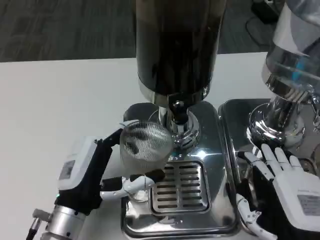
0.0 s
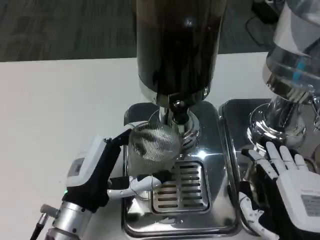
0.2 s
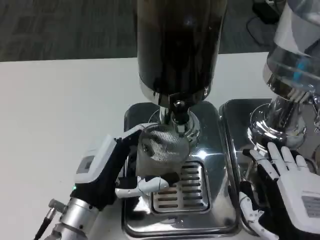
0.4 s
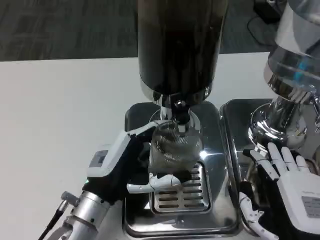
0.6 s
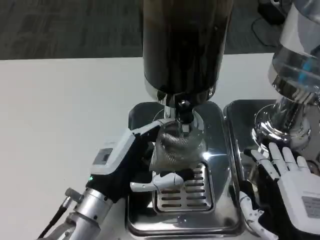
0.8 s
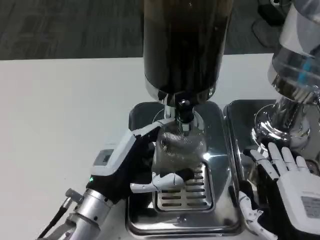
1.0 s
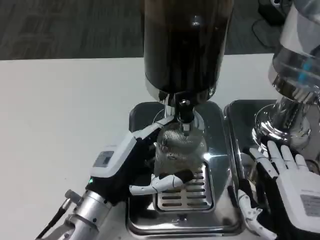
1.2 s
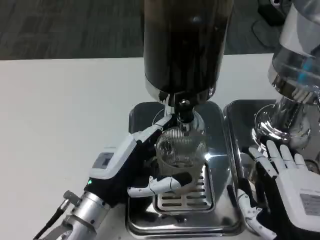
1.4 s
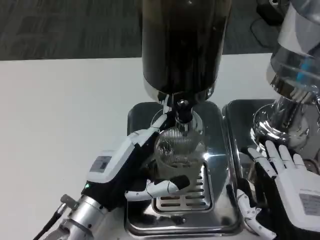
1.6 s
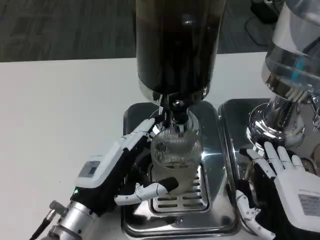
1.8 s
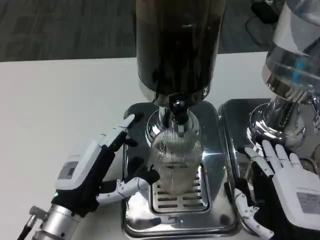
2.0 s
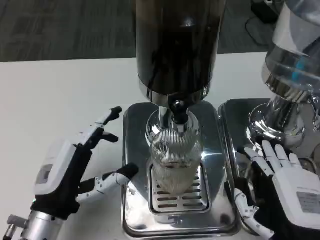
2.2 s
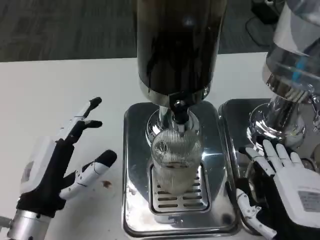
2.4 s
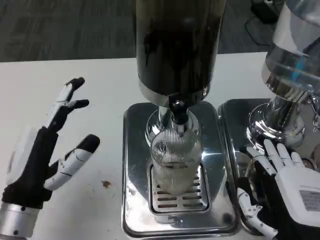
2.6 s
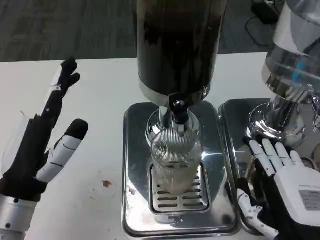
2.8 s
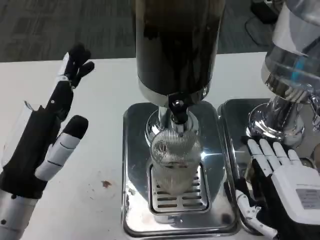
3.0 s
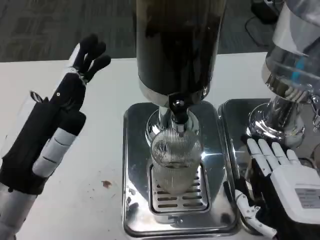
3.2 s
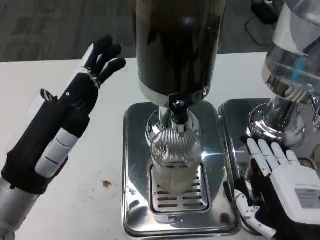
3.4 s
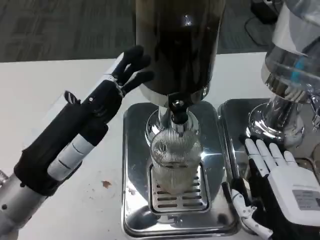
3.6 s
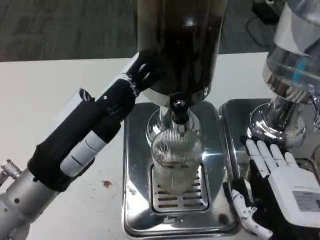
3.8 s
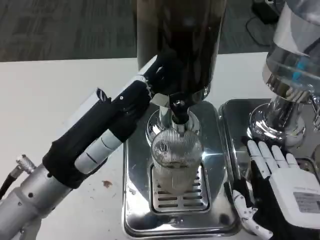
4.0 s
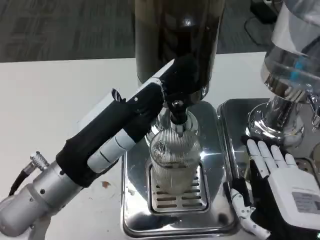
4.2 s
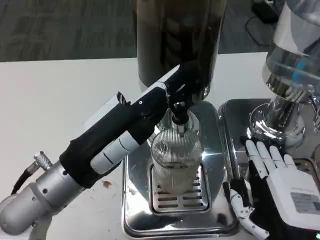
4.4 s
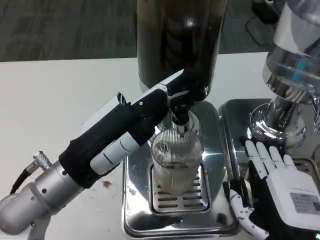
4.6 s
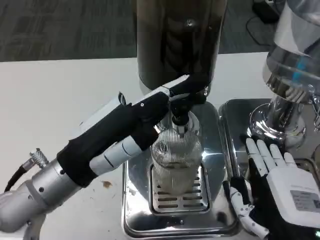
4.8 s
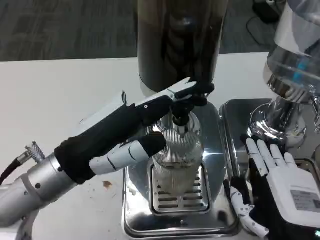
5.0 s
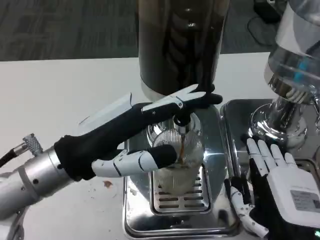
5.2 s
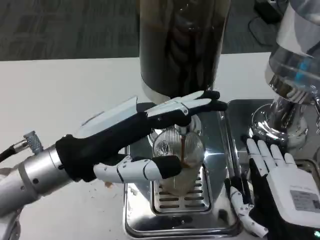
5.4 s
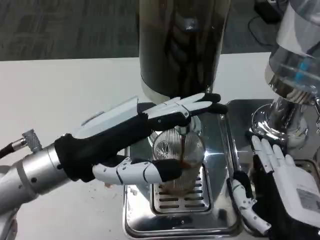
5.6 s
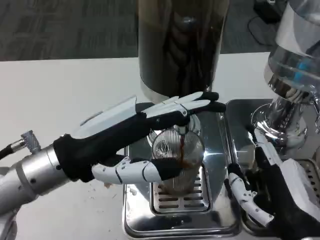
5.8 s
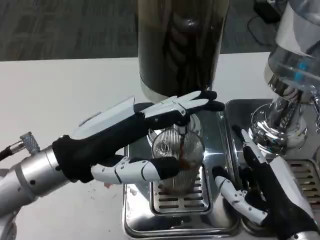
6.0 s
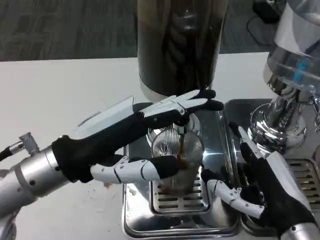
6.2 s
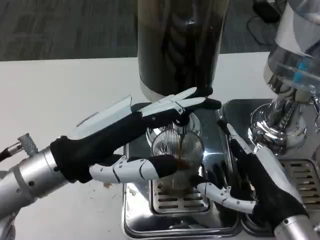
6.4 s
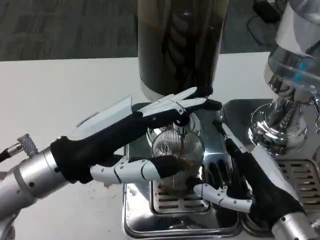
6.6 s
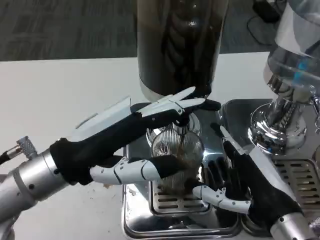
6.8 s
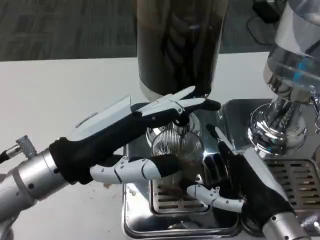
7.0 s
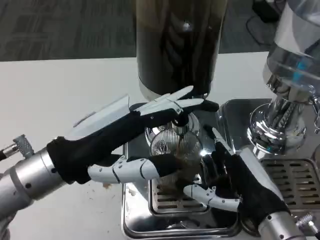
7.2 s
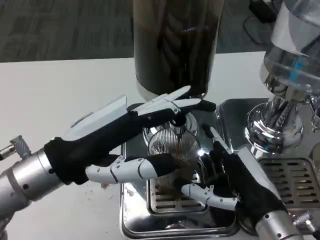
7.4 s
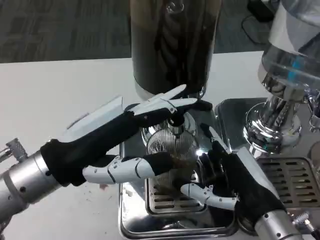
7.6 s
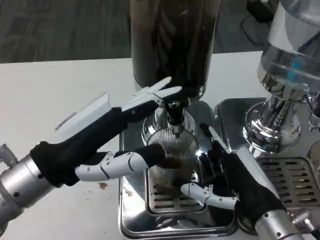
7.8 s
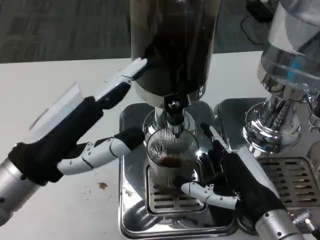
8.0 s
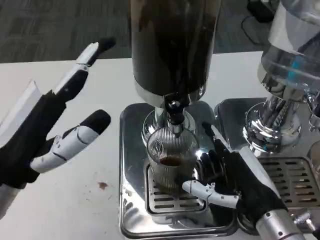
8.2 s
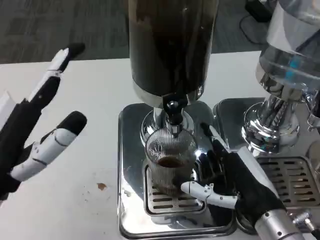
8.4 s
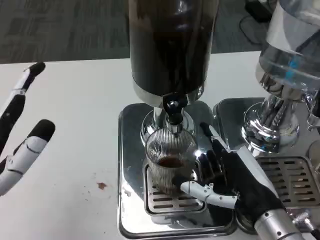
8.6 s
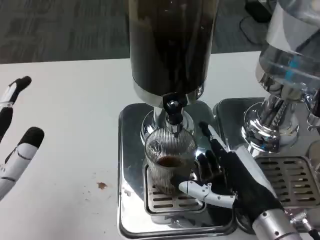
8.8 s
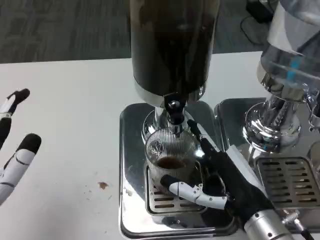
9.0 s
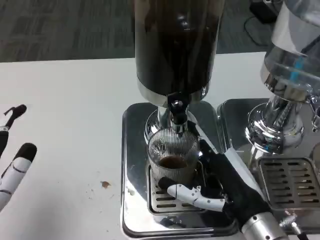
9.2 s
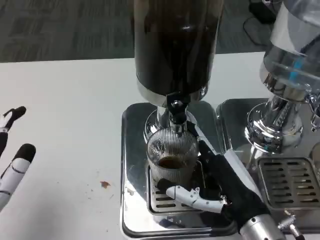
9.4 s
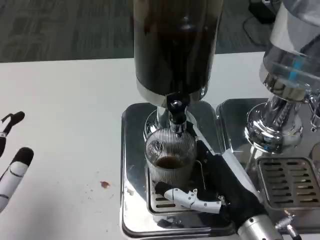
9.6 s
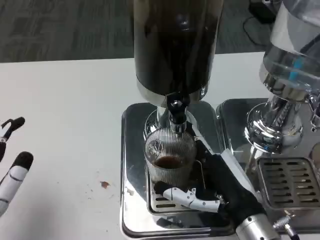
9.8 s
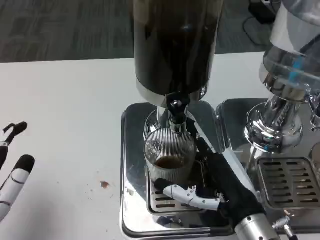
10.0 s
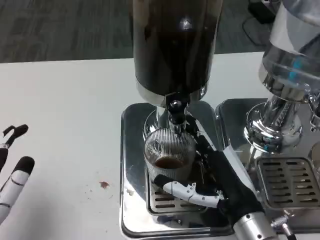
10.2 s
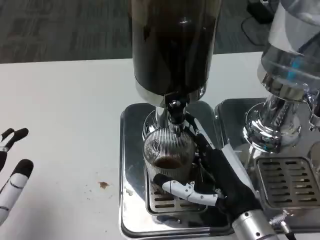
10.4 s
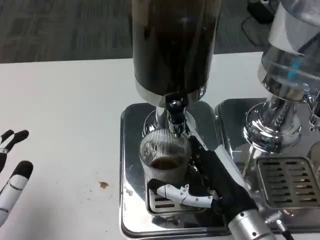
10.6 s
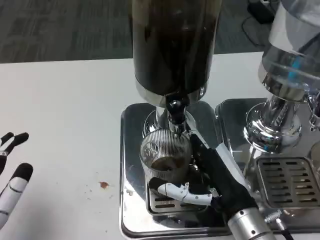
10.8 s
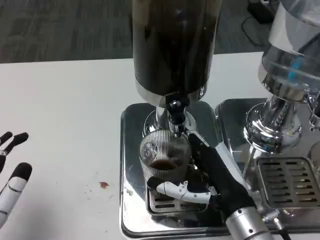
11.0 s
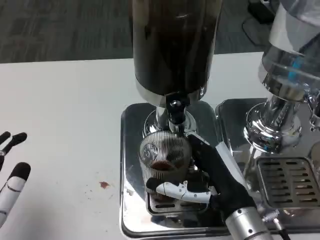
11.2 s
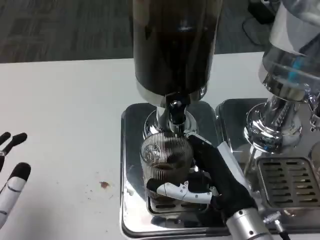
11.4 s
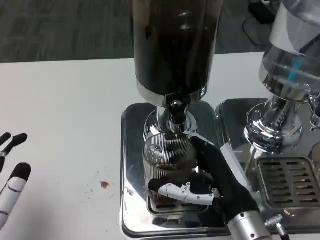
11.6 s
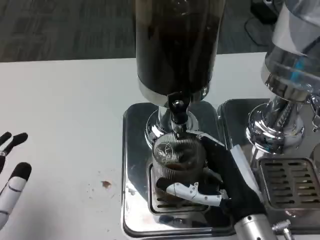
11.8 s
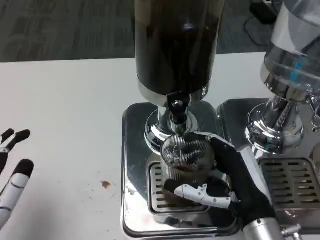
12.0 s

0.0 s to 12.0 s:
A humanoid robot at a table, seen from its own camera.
Task of the whole recording: Grasp the cup under the faucet to collect the drink, then remove the cup.
1.6 to 3.0 s: The left hand moves upward and to the left, roughly 10 cm.
3.0 to 4.4 s: The left hand shifts by roughly 5 cm.
7.6 to 9.0 s: The left hand travels backward, to the left and downward by some 10 cm.
9.0 to 10.4 s: The hands move only a little.

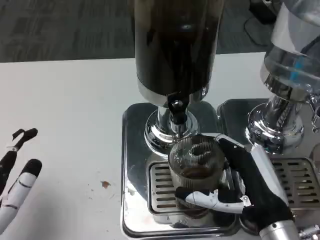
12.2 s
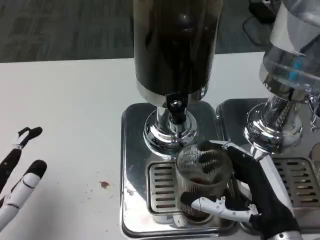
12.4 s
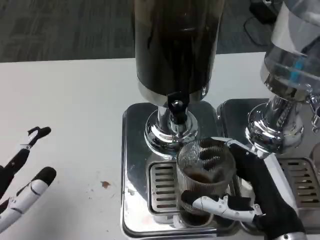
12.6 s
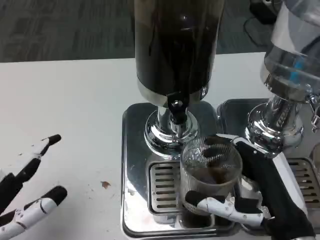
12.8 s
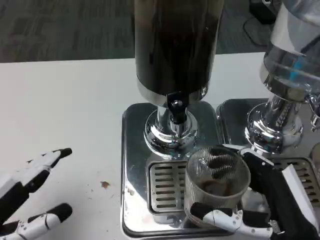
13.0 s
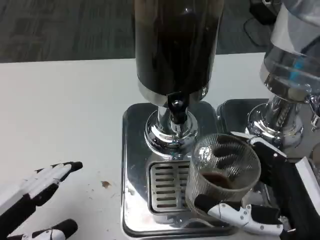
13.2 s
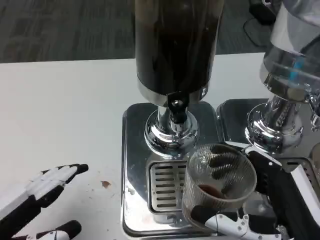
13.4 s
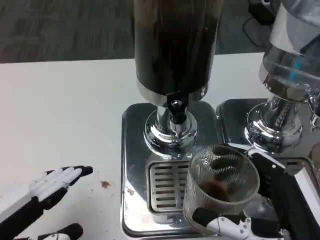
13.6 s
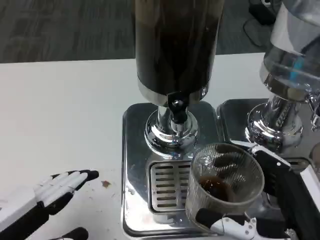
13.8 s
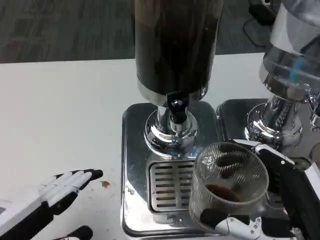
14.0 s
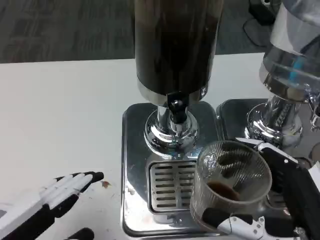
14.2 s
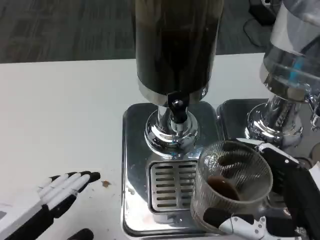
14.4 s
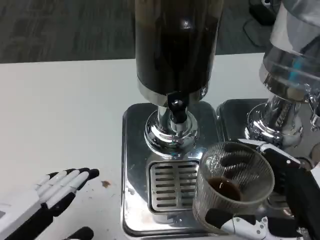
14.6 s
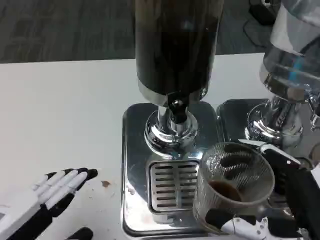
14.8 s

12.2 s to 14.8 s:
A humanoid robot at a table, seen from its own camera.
Task of the whole recording: Grasp the cup under the faucet to collect the drink, then remove the cup.
12.2 to 13.4 s: The left hand moves approximately 5 cm. The right hand is displaced backward by roughly 5 cm.
13.4 to 14.8 s: There are only small adjustments of the hands.

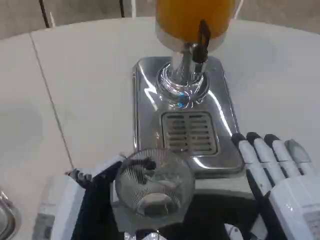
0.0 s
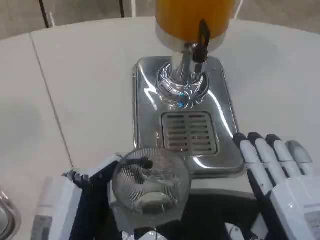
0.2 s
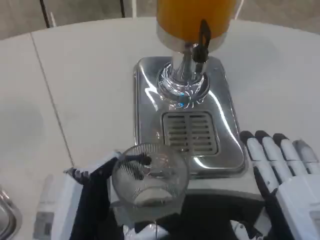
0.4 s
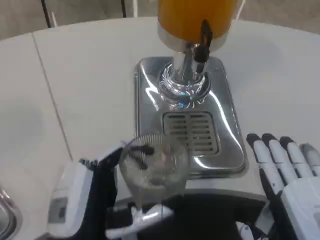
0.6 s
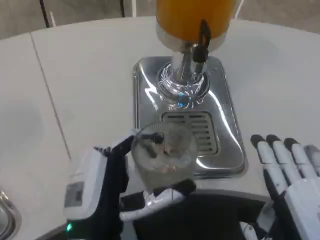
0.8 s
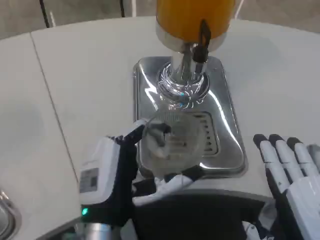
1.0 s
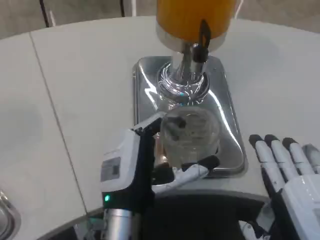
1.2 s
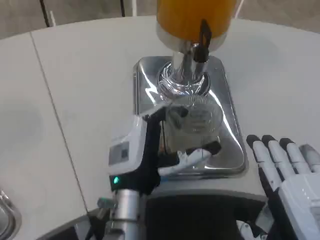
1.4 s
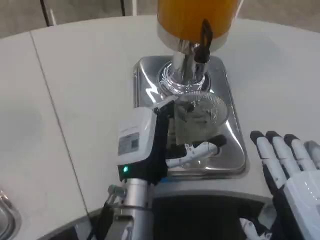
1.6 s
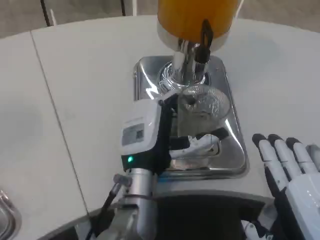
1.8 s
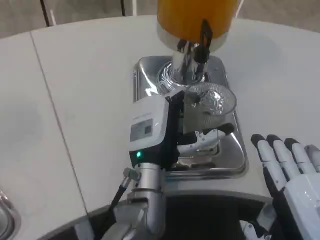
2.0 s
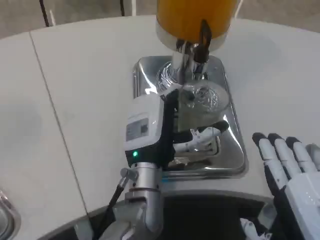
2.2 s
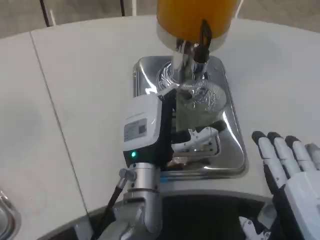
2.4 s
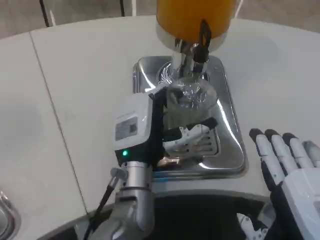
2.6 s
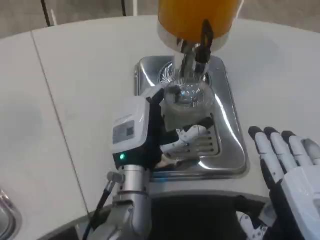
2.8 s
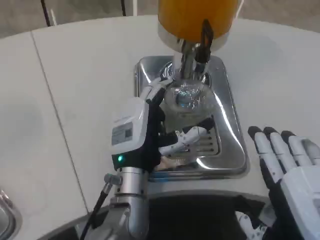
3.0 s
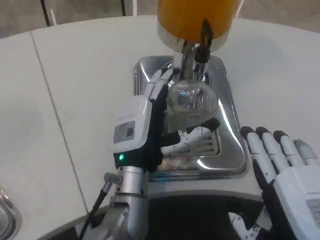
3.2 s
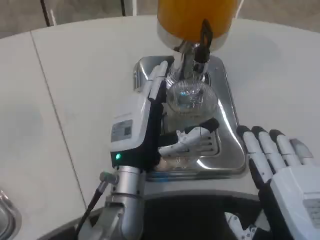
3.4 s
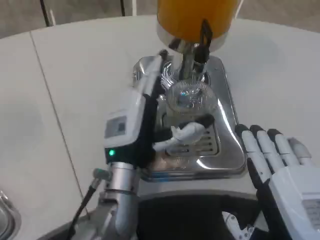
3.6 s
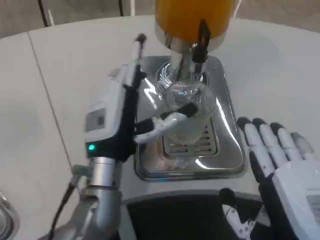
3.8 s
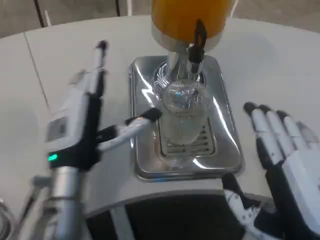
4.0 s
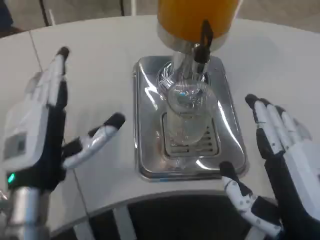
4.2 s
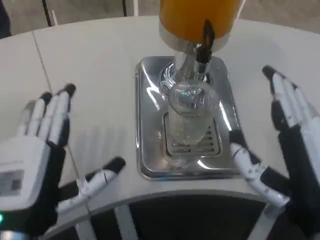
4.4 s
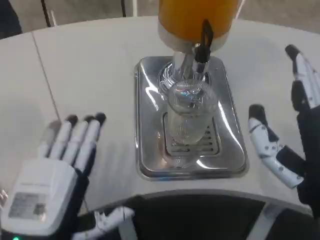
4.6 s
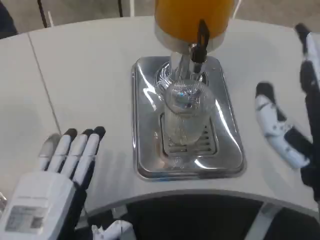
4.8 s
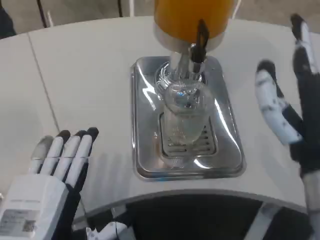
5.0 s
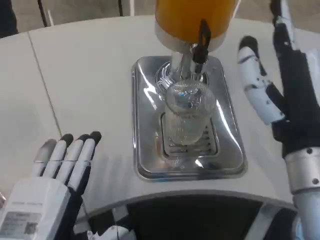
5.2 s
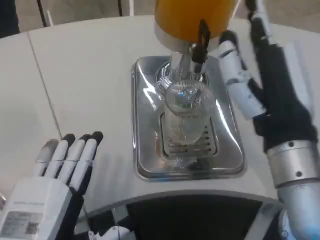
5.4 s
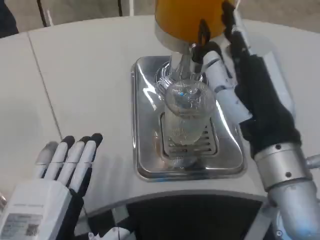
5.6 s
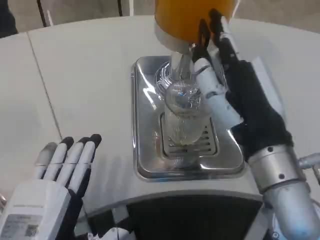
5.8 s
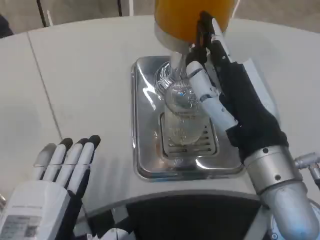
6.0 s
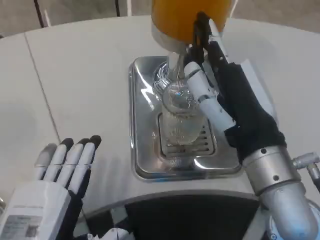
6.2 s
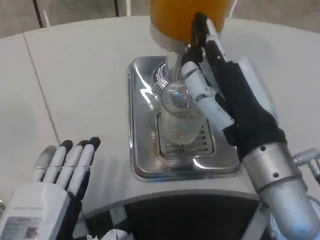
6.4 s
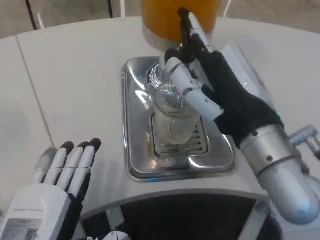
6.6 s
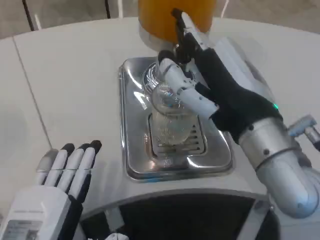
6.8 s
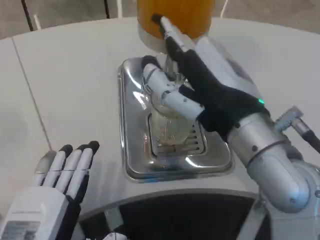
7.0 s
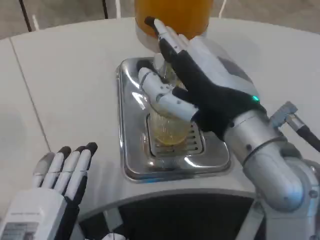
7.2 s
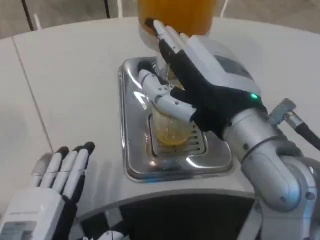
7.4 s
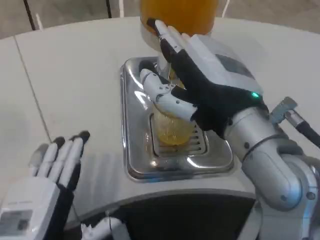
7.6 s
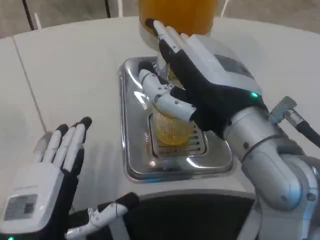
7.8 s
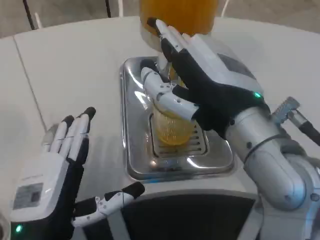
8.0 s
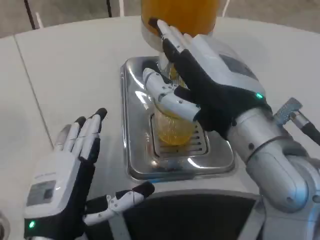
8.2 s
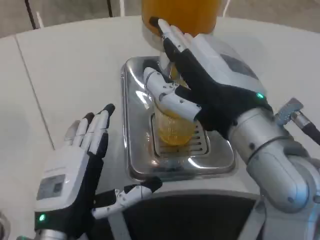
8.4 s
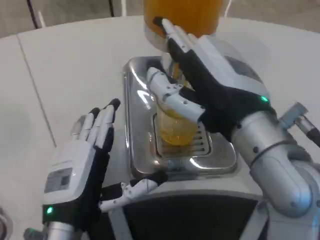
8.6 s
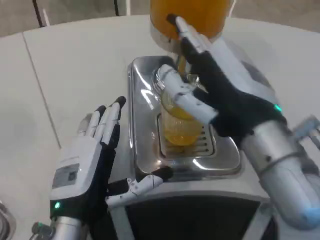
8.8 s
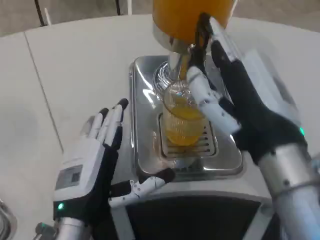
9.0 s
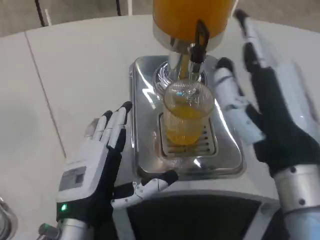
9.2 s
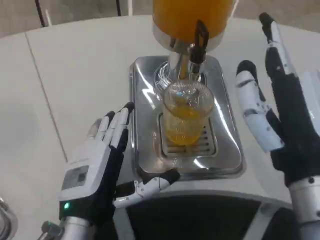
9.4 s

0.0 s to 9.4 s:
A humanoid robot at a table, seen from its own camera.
Task of the whole recording: Grasp the cup under the faucet to collect the drink, then remove the cup.
0.0 to 1.6 s: The left hand travels forward and to the right by roughly 20 cm.
1.6 to 3.2 s: The hands move only a little.
3.2 to 4.8 s: The left hand moves backward and to the left, about 20 cm; the right hand travels forward by about 5 cm.
4.8 to 6.2 s: The right hand shifts by about 5 cm.
6.2 to 7.8 s: The right hand heads upward, covering approximately 5 cm.
7.8 to 9.4 s: The left hand moves forward, about 5 cm. The right hand moves downward, approximately 5 cm.
